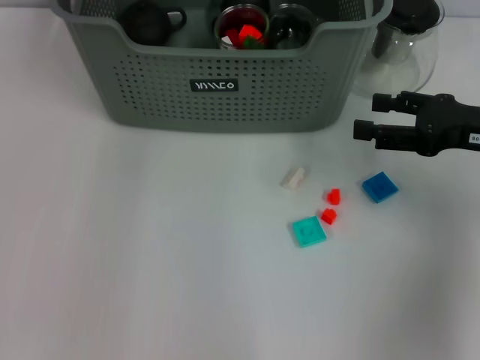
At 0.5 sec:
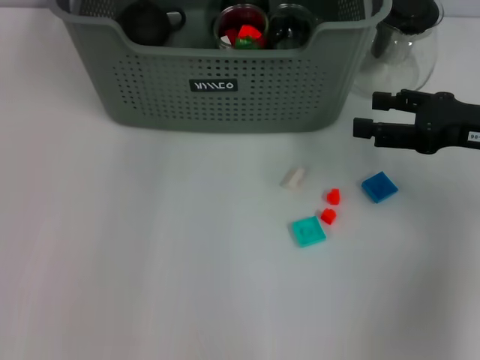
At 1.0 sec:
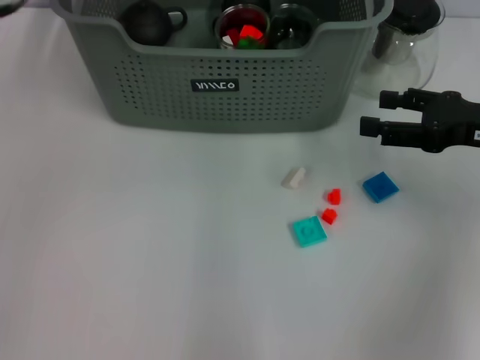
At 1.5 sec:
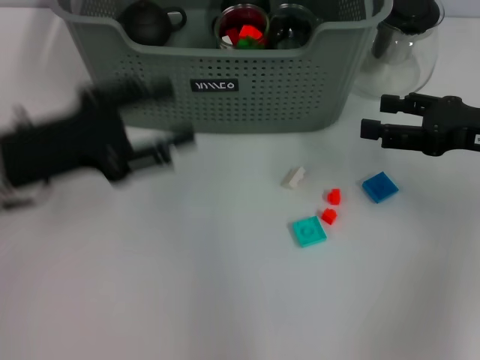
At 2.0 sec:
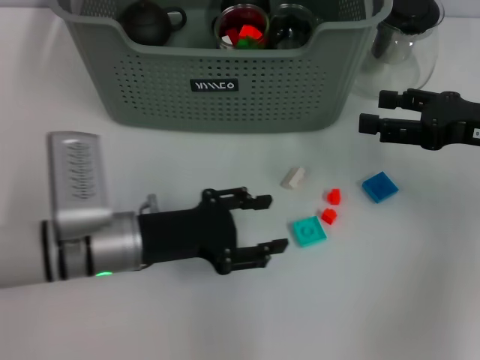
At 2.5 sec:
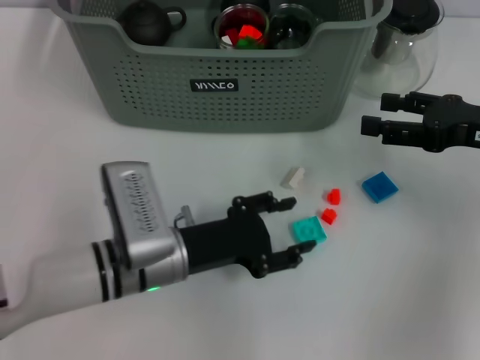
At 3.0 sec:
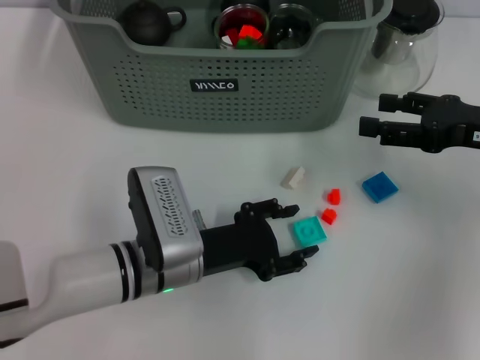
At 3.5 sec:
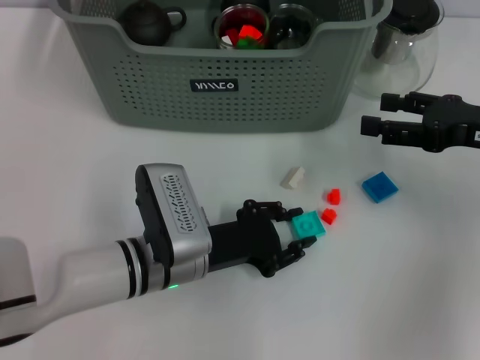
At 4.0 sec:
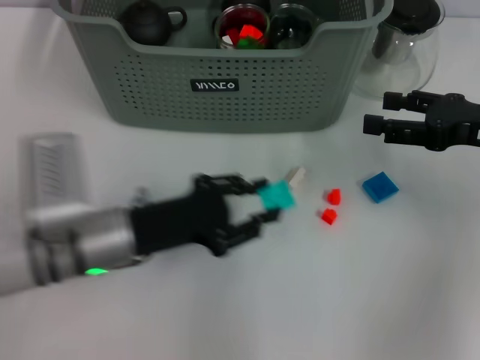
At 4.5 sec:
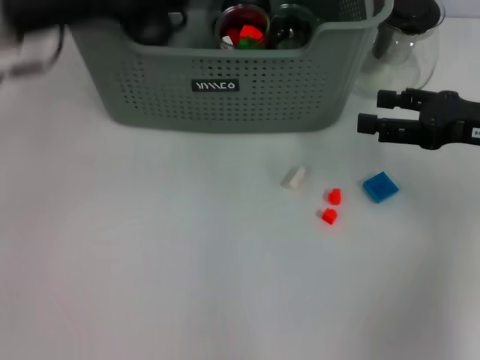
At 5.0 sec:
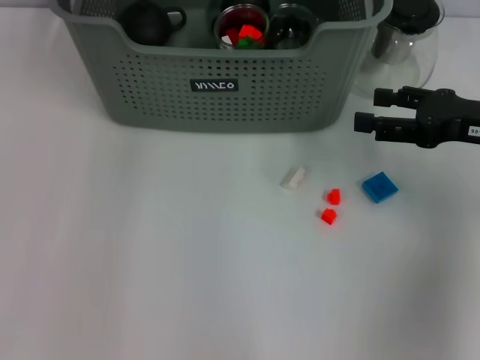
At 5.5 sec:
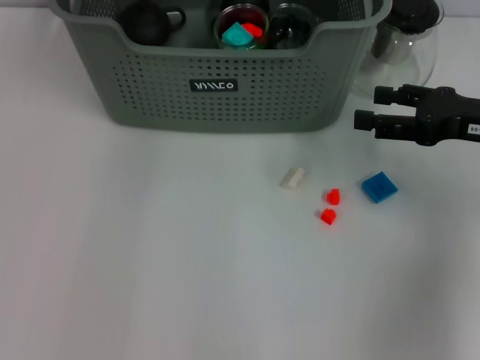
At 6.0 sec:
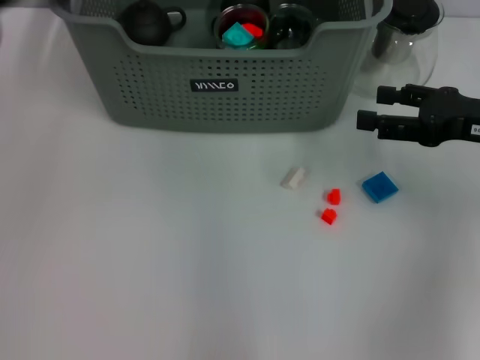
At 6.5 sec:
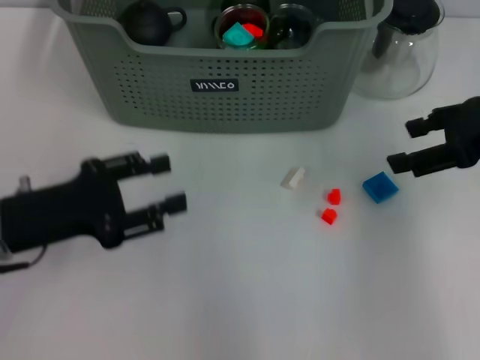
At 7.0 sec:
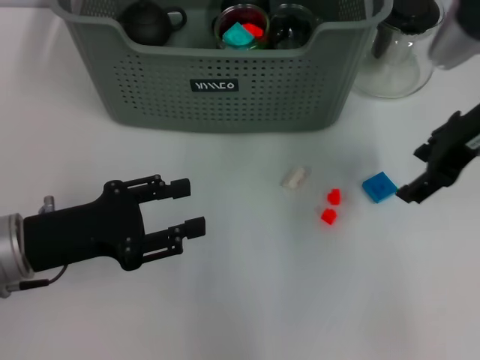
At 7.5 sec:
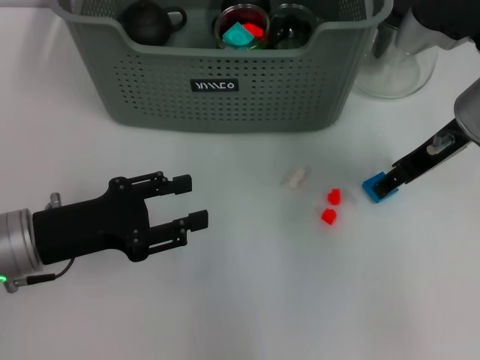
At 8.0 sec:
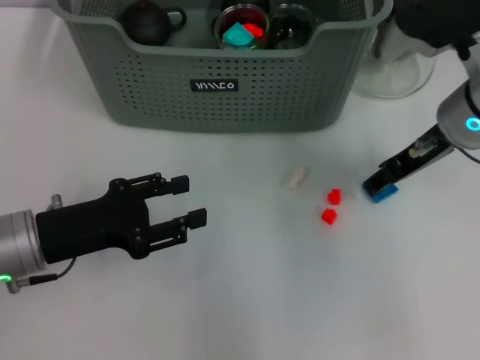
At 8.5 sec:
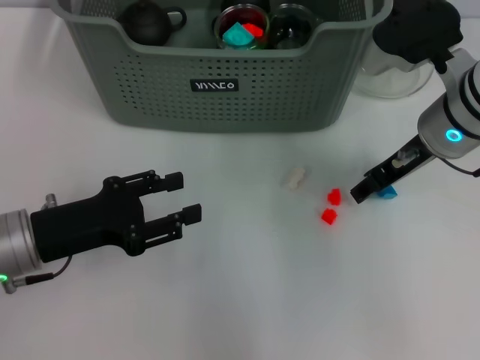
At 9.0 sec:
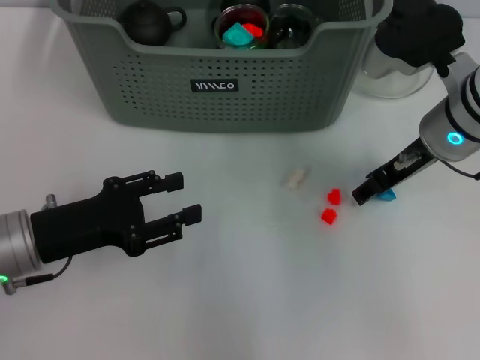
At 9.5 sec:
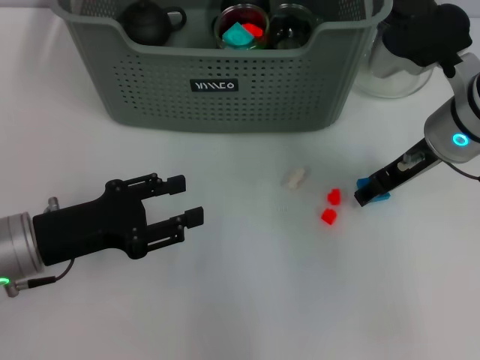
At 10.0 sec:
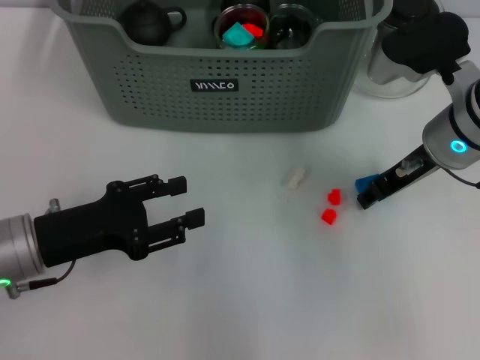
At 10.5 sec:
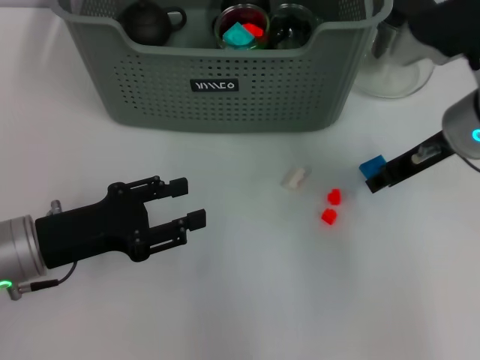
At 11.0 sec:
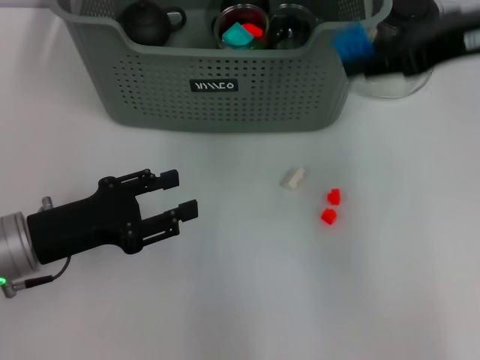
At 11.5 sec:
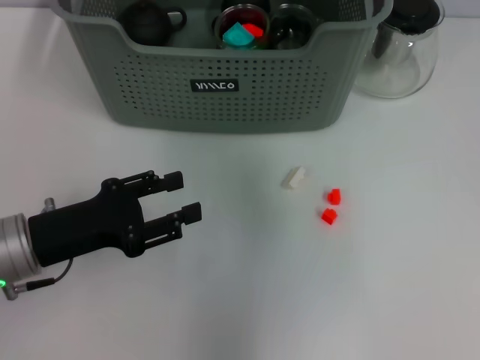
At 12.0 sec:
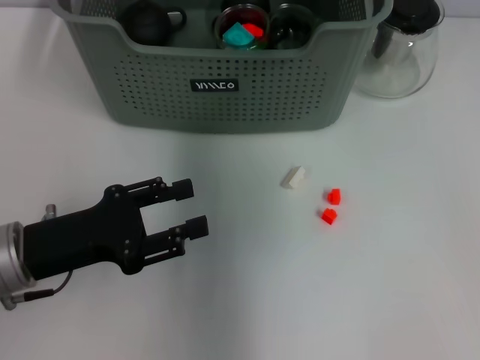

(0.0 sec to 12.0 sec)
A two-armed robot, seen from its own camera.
Task of the whole recording: pick up the teacup on the table and place it into the storage bin, pick up the block on the table and place it into the storage bin.
Step, 0.5 sec - 3.5 sec: Grasp the light blue block with left gripper.
Step, 4.0 sec - 5.0 sec: Place the light blue block in the storage box with left gripper.
Step, 5.5 sec - 10.0 sec: Grasp the dark blue block with right gripper.
0.0 sec - 2.0 sec: The left gripper goes some 30 cm downward and backward.
4.0 sec - 6.0 sec: The left gripper is displaced upward and to the left by approximately 20 cm.
6.0 sec - 8.0 sec: The right gripper is displaced to the left by approximately 10 cm. The left gripper is displaced downward and backward by roughly 15 cm.
8.0 sec - 10.0 sec: There are only small adjustments of the grippers.
10.0 sec - 12.0 sec: The right gripper goes roughly 20 cm to the left, forward and upward.

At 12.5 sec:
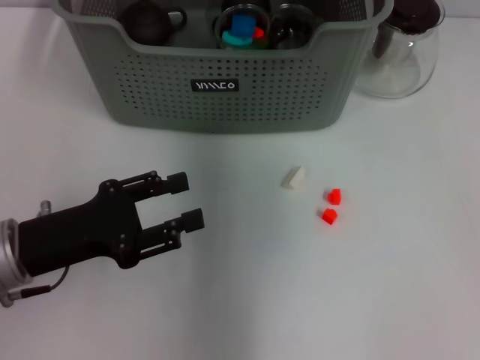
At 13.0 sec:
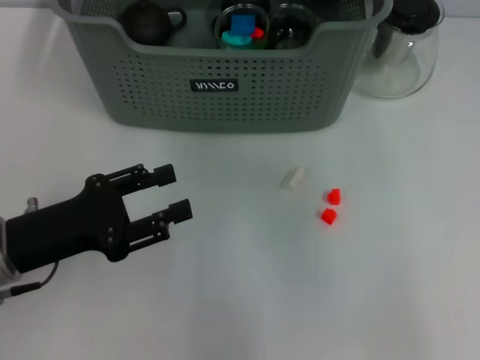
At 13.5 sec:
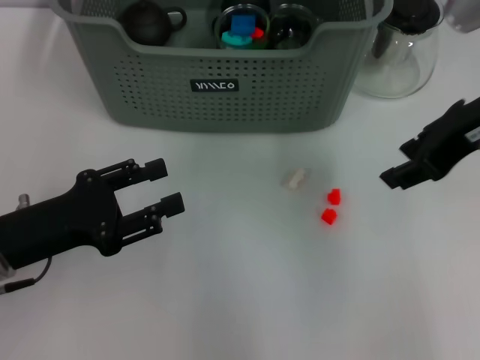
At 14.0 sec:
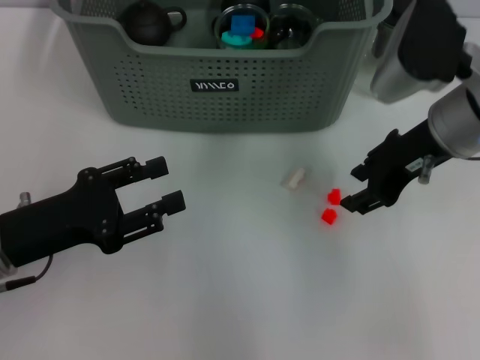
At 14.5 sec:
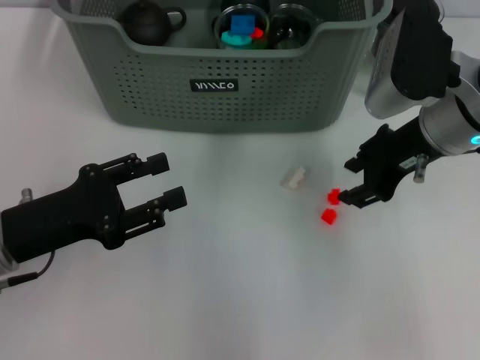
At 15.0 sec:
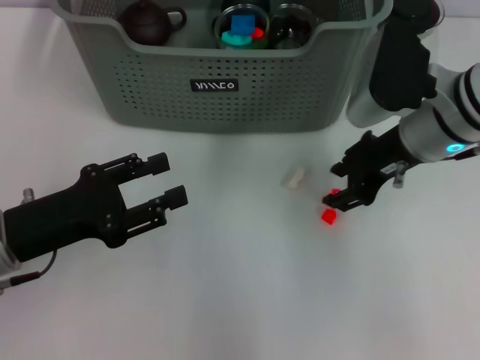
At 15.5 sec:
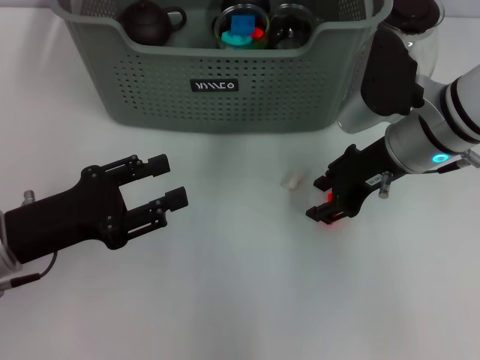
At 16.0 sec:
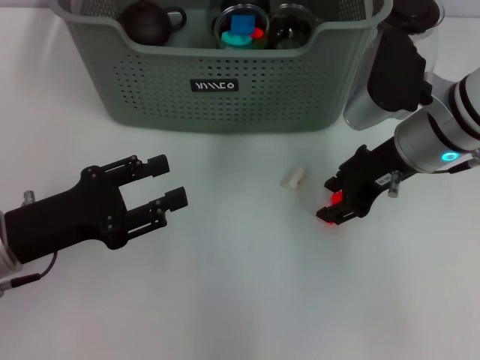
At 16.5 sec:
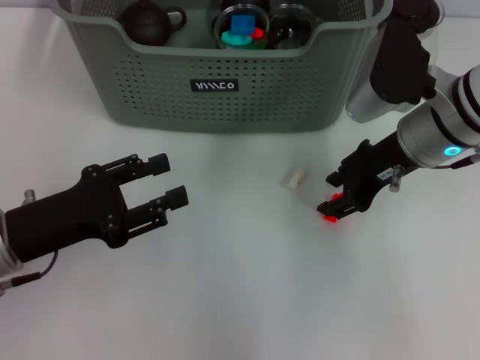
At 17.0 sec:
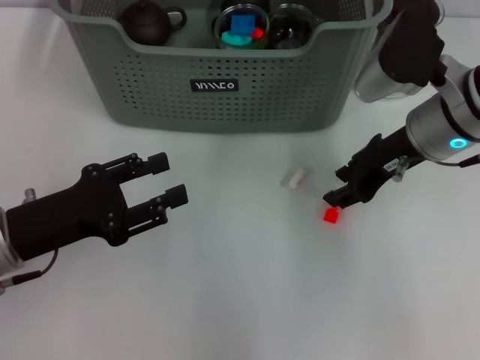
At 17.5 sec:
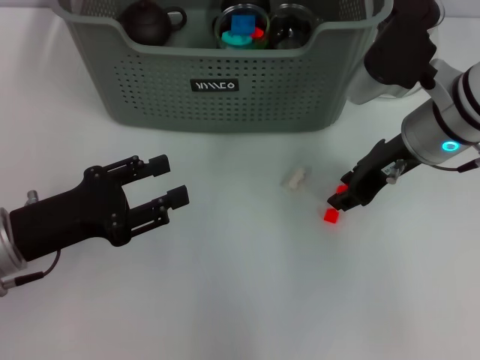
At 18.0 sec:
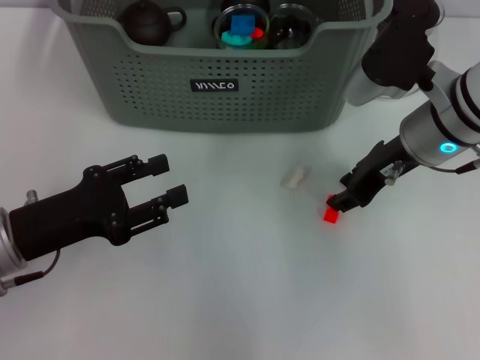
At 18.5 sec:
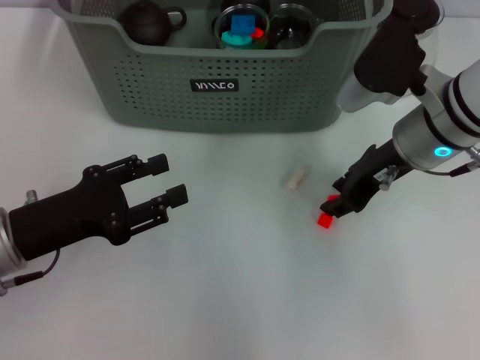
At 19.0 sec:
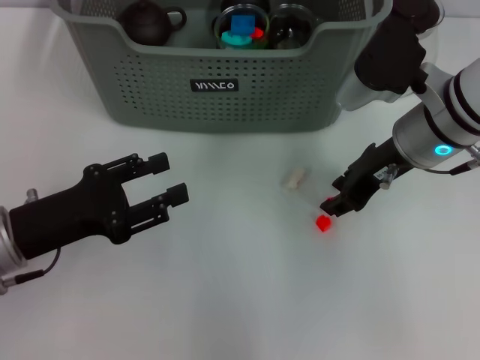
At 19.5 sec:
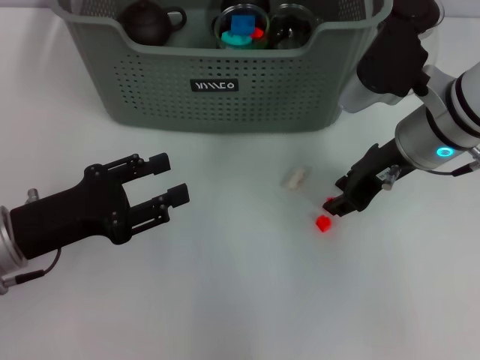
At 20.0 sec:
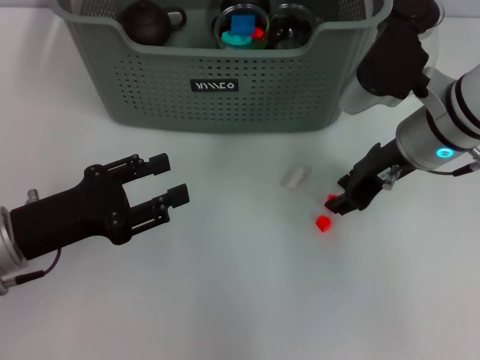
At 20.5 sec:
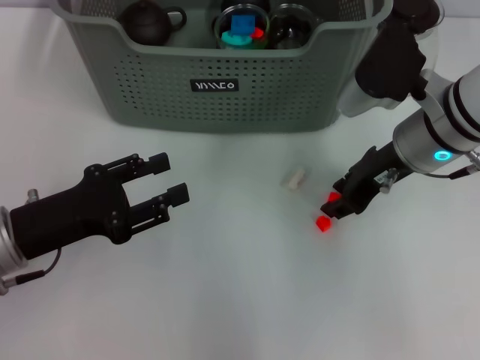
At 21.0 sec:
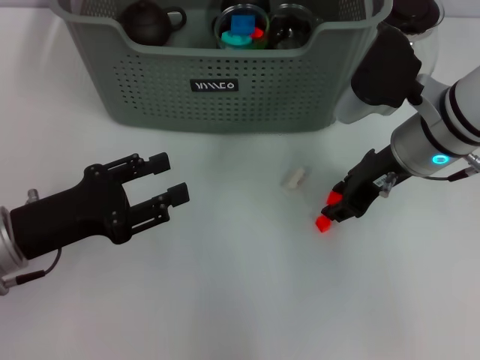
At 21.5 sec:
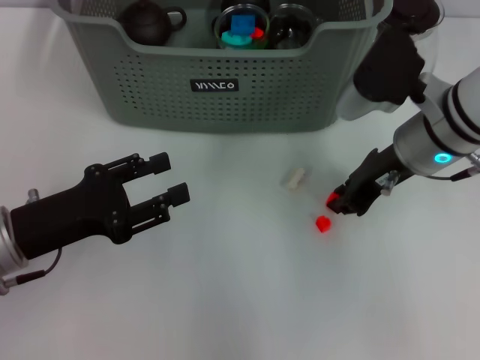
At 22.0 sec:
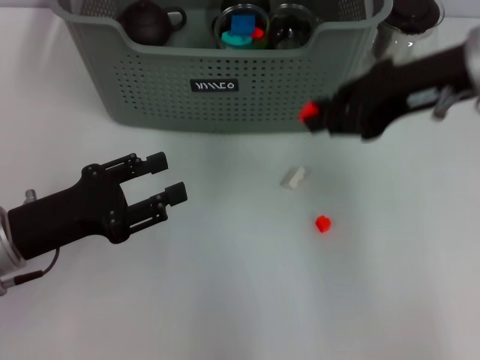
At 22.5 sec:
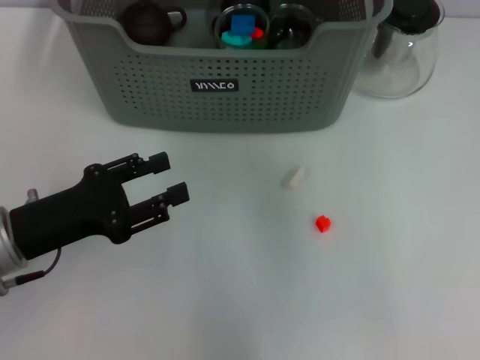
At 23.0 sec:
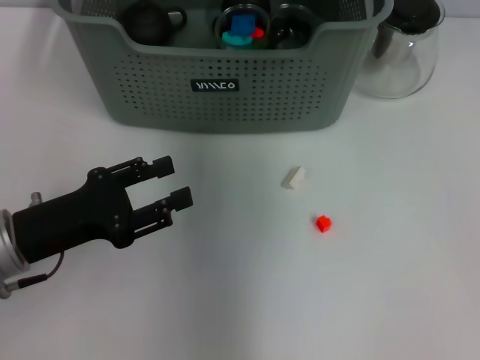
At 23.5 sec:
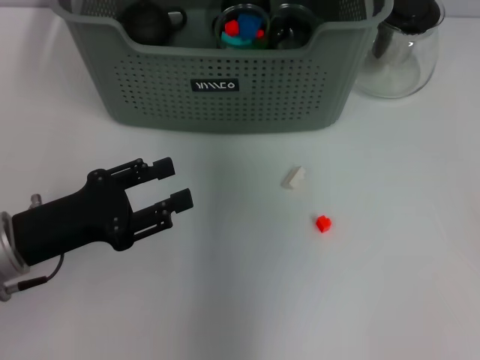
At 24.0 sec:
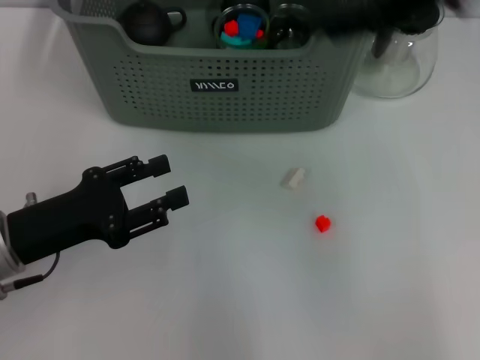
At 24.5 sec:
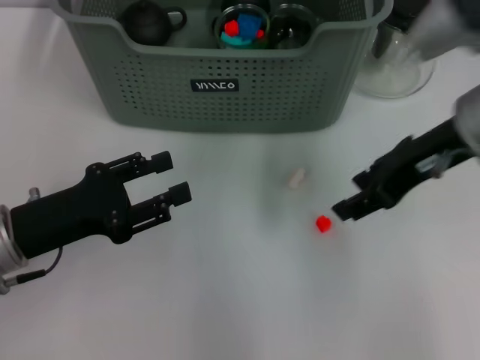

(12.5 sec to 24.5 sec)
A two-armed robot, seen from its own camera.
Task of the whole recording: pick up the teacup on the table and place it into the storage bin, pick up the block on the table and place it into the storage bin.
Step, 13.0 sec - 21.0 sec: Grasp the orange block with right gripper.
Step, 21.5 sec - 23.0 sec: Place the orange block in the storage box with right gripper.
12.5 sec - 14.5 sec: The right gripper goes some 20 cm to the right, backward and downward.
14.5 sec - 18.5 sec: The grippers make only small movements.
18.5 sec - 20.5 sec: Neither gripper changes place.
20.5 sec - 22.5 sec: The right gripper goes about 20 cm upward.
22.5 sec - 24.5 sec: The right gripper is displaced downward, backward and to the right by about 15 cm, and opens up.

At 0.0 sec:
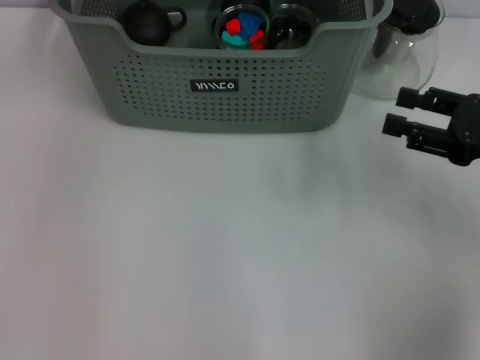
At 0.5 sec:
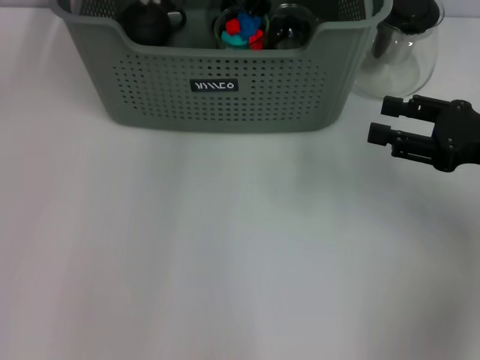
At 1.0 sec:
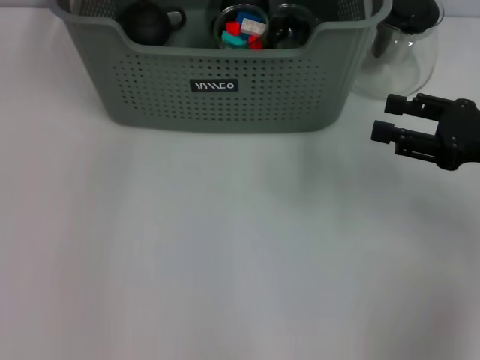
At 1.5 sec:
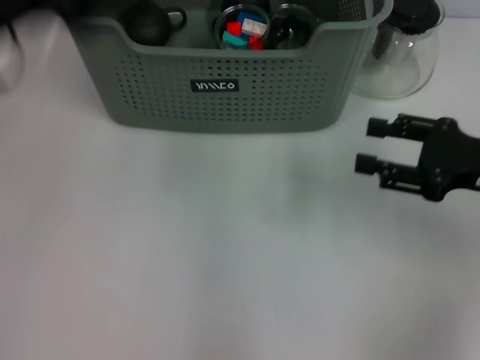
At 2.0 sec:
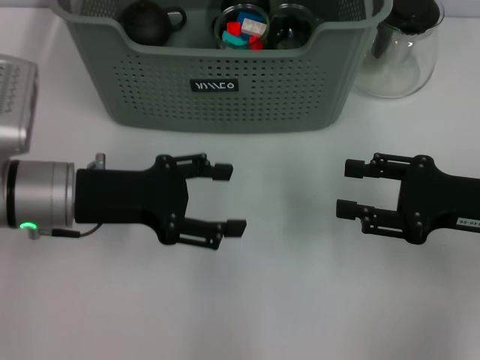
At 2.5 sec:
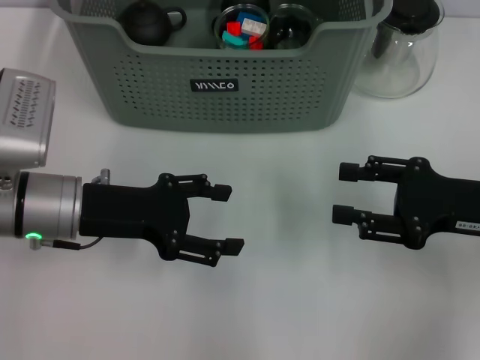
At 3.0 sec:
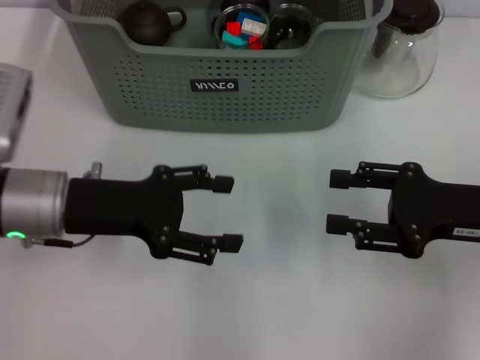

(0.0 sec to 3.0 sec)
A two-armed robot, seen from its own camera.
Task of the whole recording: pick up the teacup on the table and place it into the storage bin, pick up the block on the table and place it into the storage bin.
0.0 sec - 1.5 sec: The left gripper is displaced backward, to the left and downward by approximately 15 cm, and opens its fingers.
1.5 sec - 3.0 sec: The left gripper shifts roughly 10 cm downward.
